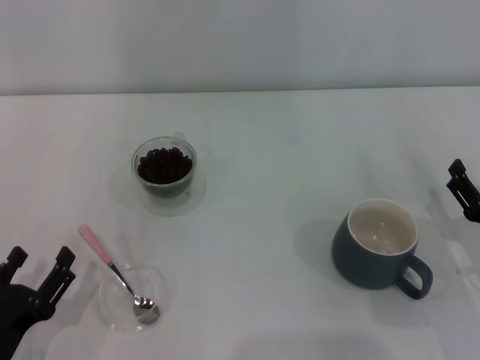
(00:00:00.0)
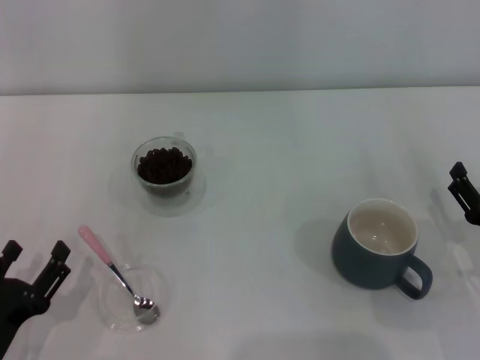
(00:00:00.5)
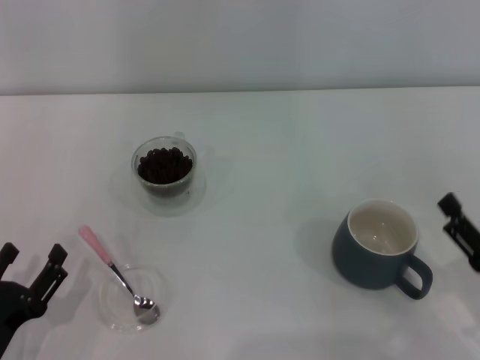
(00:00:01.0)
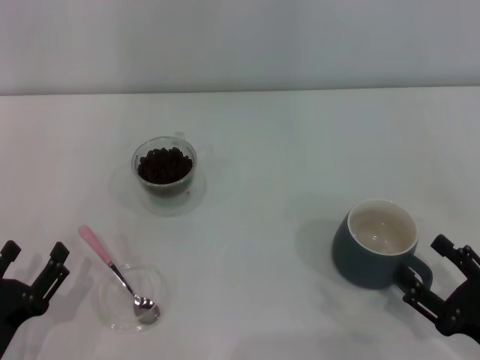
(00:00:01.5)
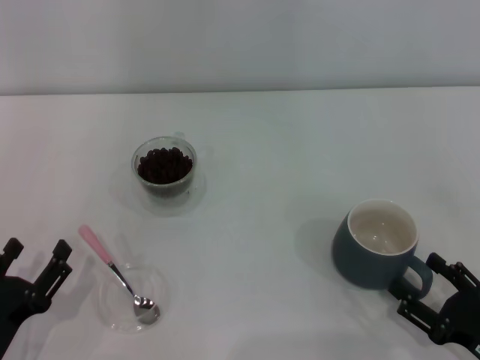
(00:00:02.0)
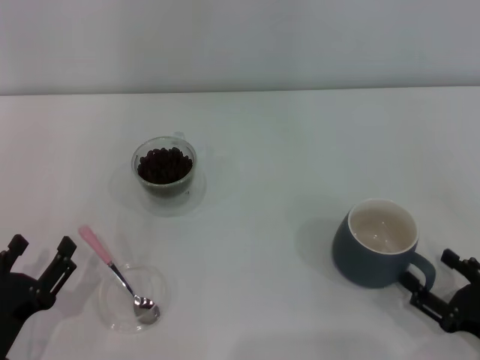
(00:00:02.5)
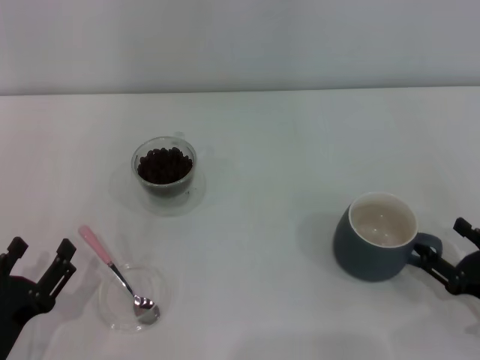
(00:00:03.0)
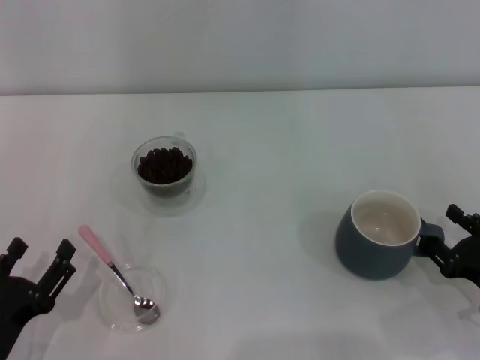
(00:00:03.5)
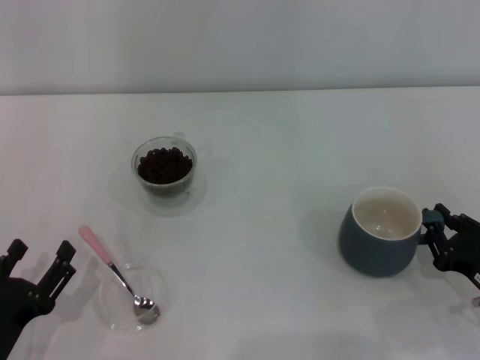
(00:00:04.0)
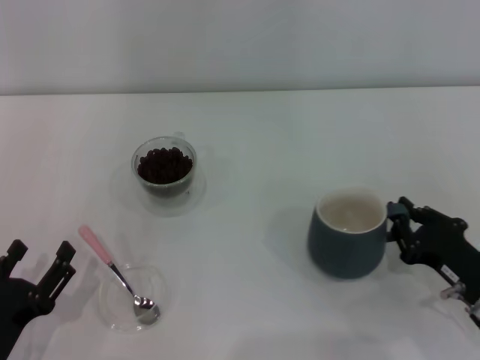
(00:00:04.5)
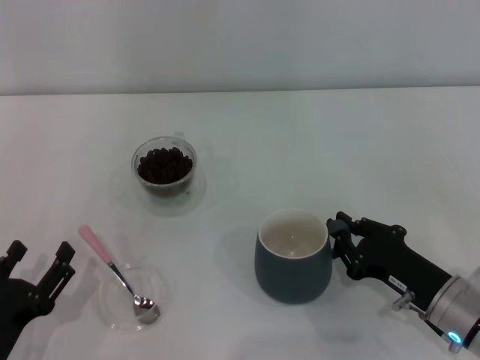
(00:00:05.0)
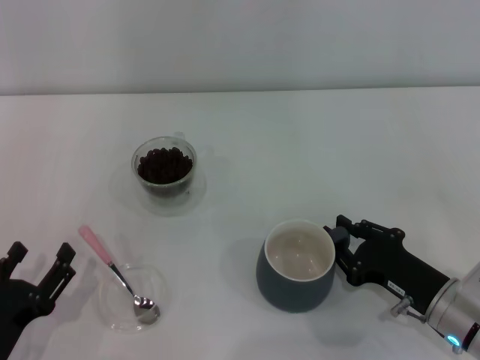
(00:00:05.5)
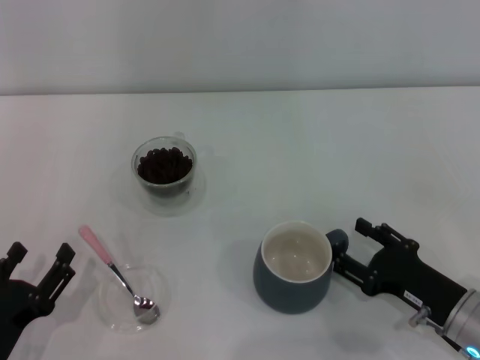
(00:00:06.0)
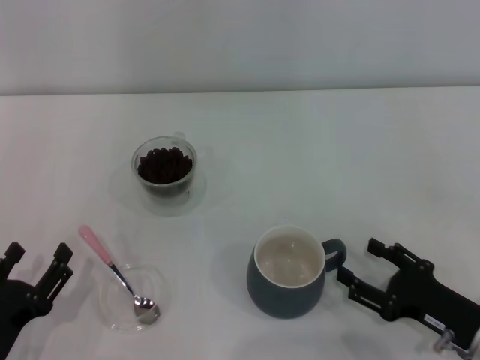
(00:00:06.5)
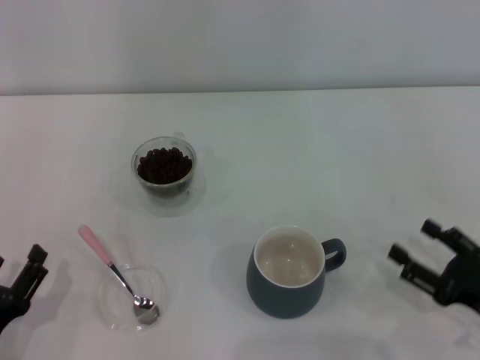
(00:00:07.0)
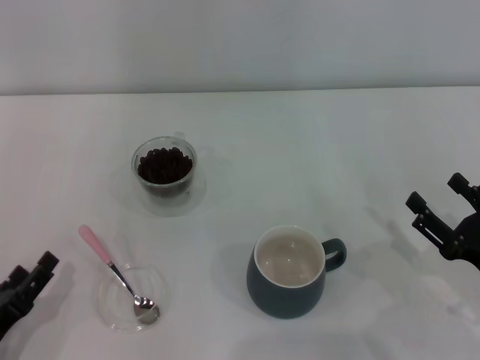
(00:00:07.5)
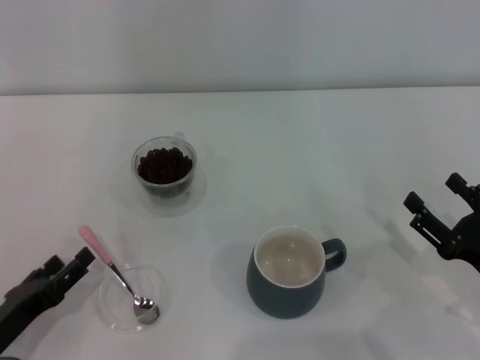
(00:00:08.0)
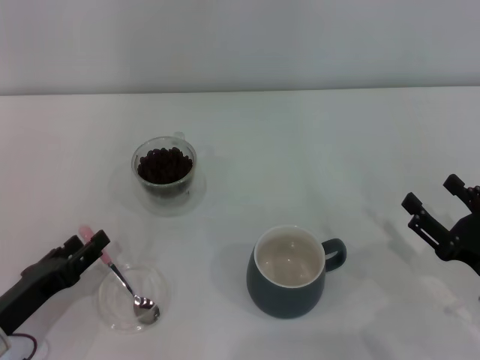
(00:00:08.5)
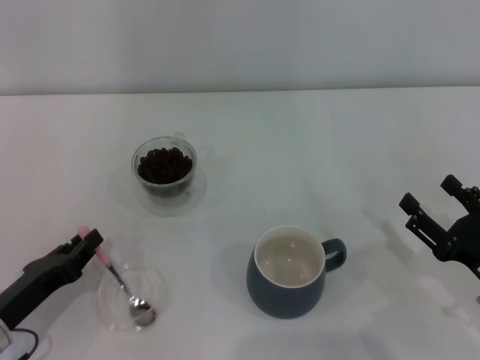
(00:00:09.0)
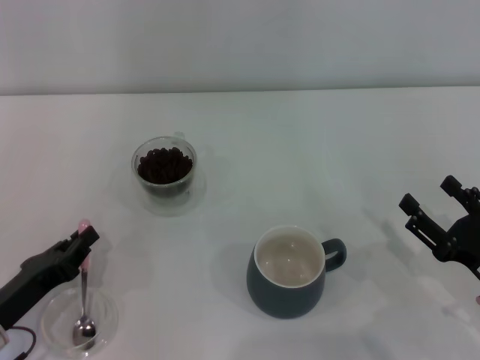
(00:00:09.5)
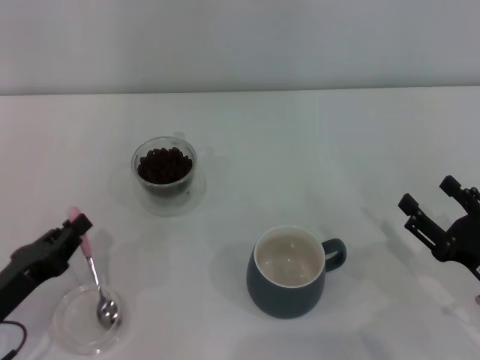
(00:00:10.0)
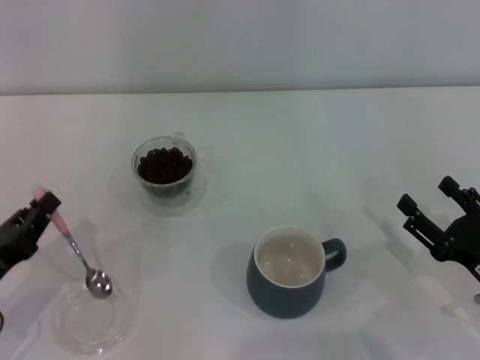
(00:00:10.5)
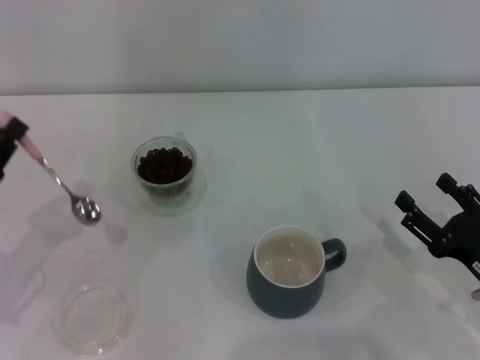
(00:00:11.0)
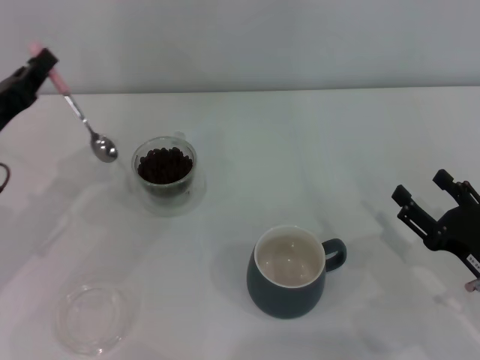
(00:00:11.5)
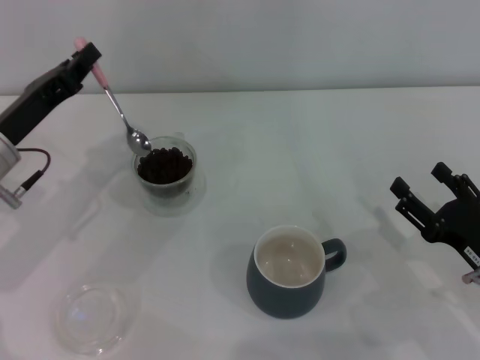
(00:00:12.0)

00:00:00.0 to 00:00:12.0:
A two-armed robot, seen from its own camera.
Task of the whole recording: Use a pink spoon to take out the coffee beans from the glass and pour them into the gray cup.
Step, 00:00:07.0 to 00:00:10.5: Pick up the spoon with the right gripper.
00:00:00.0 to 00:00:02.0: The right gripper goes roughly 10 cm backward.
00:00:02.0 to 00:00:04.0: The right gripper goes about 5 cm forward, and closes.
00:00:04.0 to 00:00:06.0: The right gripper travels to the left by some 5 cm, and closes and opens again.
00:00:06.0 to 00:00:08.0: The right gripper ends up roughly 5 cm from where it was, and opens up.
00:00:08.0 to 00:00:10.0: The left gripper closes.
00:00:10.0 to 00:00:12.0: The left gripper goes some 15 cm forward and upward.

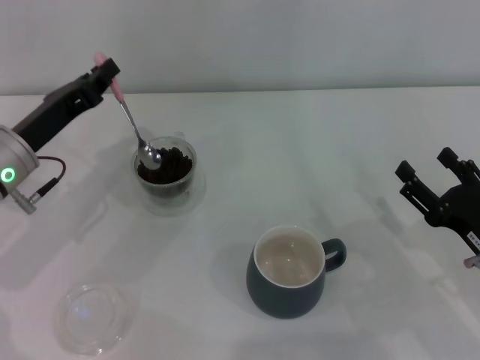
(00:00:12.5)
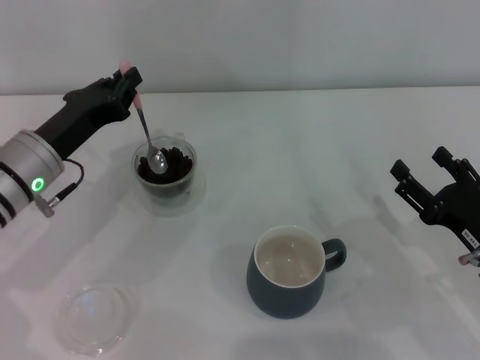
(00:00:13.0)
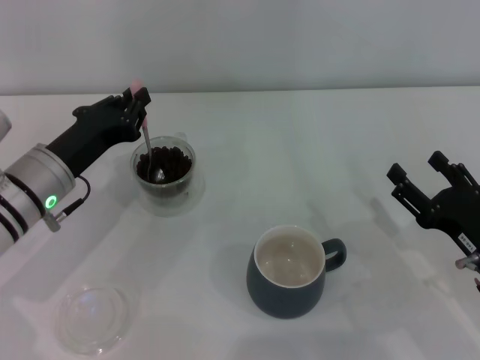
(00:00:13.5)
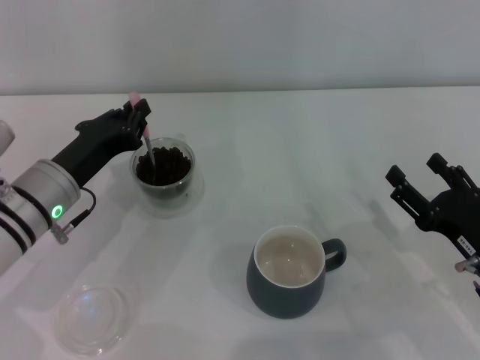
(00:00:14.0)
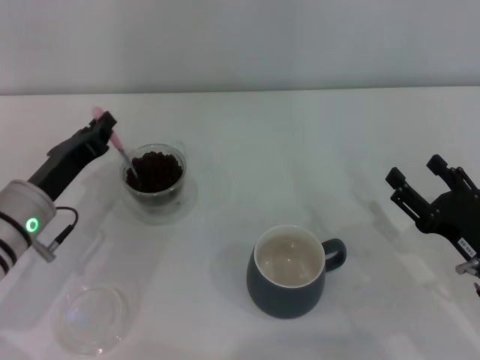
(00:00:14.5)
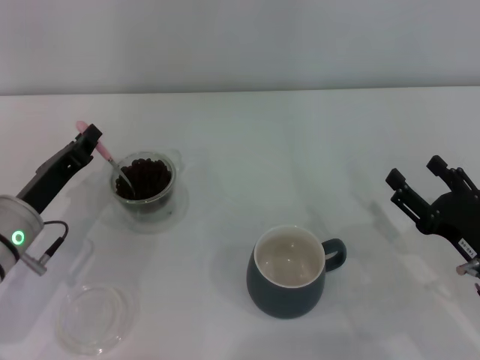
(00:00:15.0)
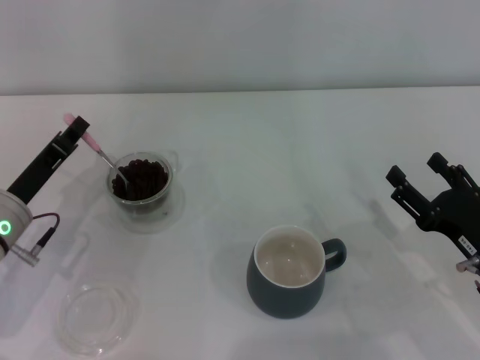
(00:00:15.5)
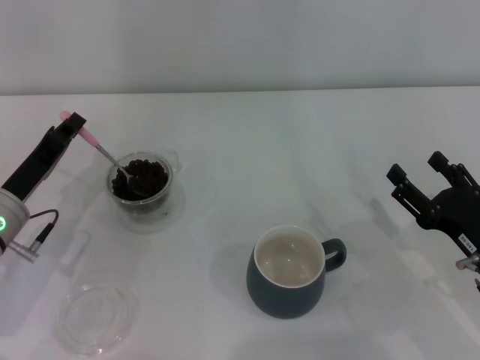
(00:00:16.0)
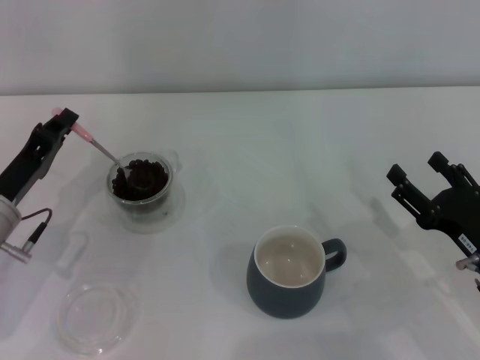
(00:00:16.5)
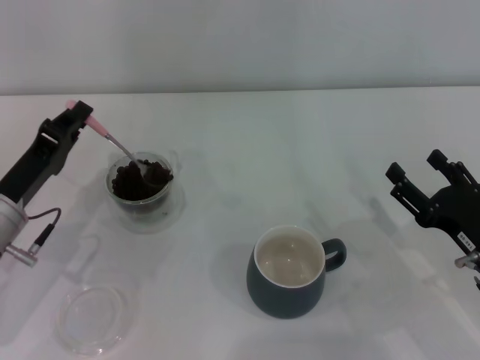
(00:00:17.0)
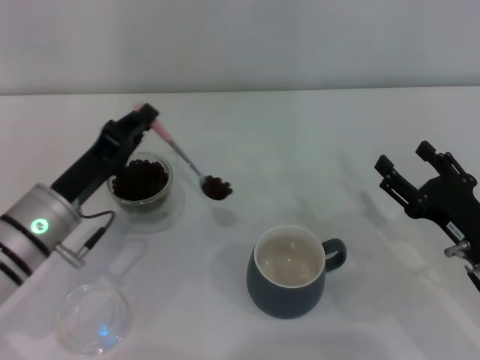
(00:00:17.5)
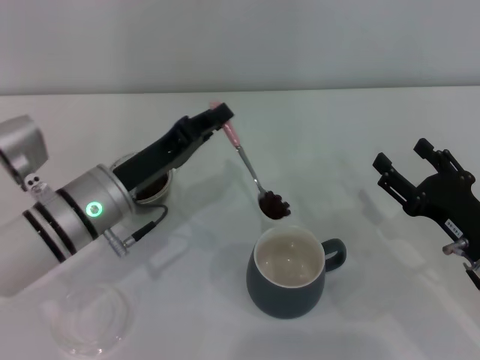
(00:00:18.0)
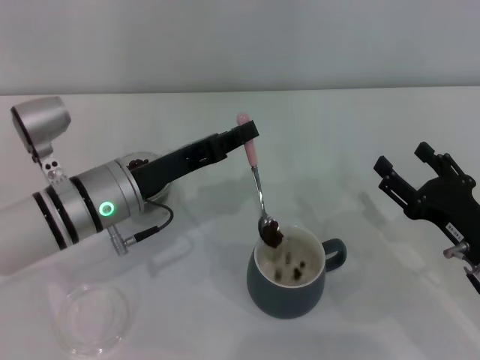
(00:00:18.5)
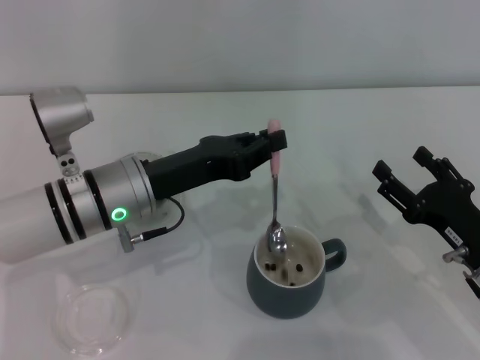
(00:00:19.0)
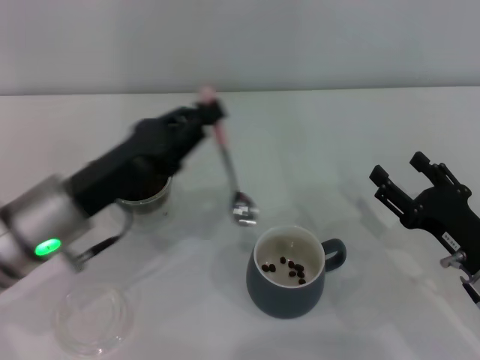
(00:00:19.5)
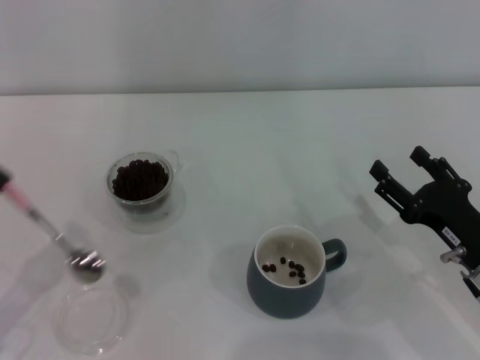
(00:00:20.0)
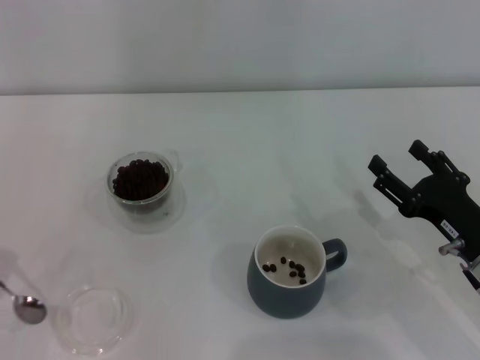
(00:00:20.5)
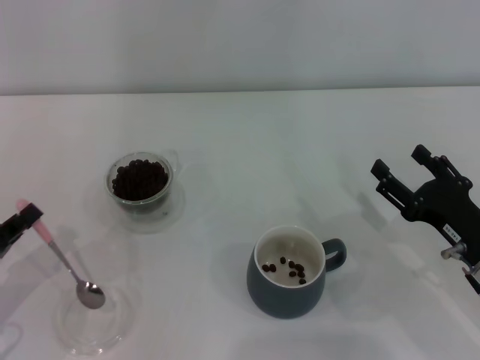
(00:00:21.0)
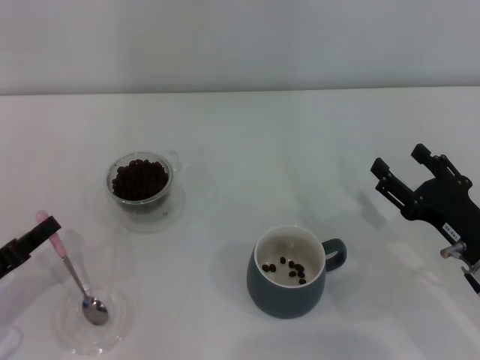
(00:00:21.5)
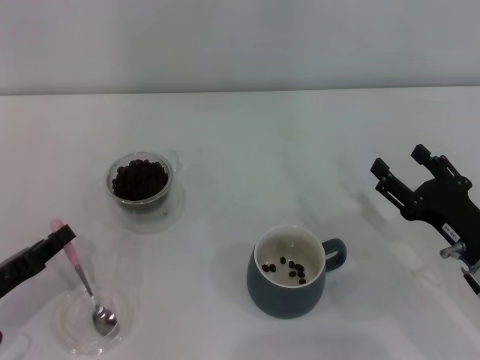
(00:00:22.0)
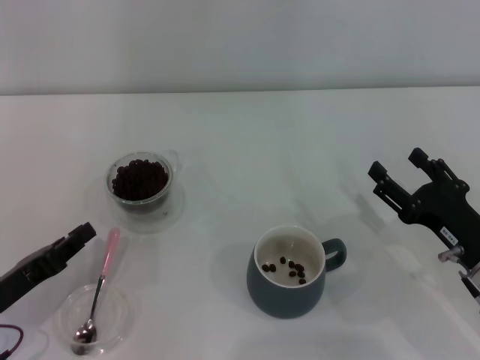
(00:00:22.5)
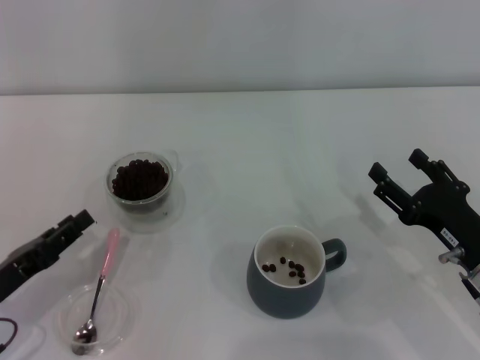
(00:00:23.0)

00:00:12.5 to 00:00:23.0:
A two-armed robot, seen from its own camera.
Task of the whole recording: Use a pink spoon to take out the coffee beans from the glass and pour them into the gray cup.
Step, 00:00:12.5 to 00:00:18.5: Scoop a spoonful of beans into the cup with the right gripper.
00:00:12.5 to 00:00:14.5: The left gripper shifts by about 5 cm.
00:00:16.5 to 00:00:19.0: The left gripper travels to the right and upward by about 15 cm.
00:00:19.0 to 00:00:21.0: The left gripper shifts approximately 20 cm to the left and backward.
00:00:21.0 to 00:00:23.0: The left gripper opens up.

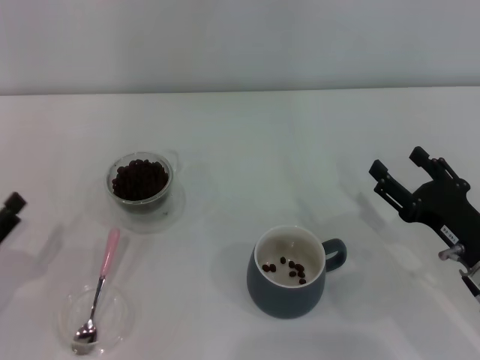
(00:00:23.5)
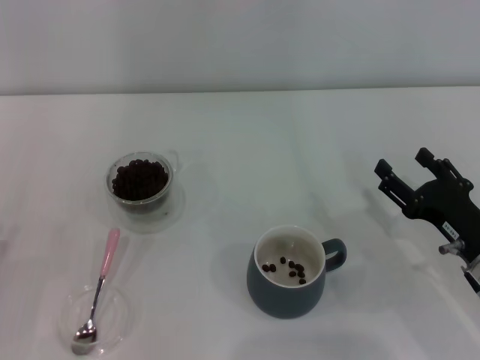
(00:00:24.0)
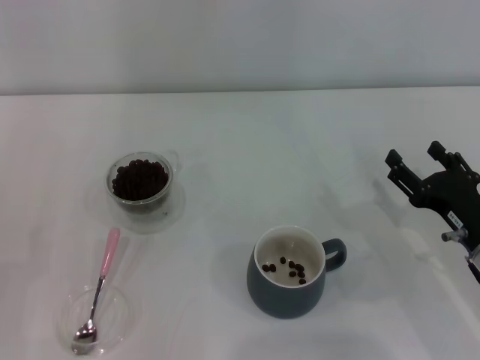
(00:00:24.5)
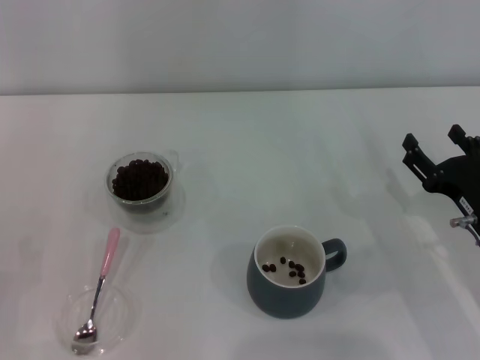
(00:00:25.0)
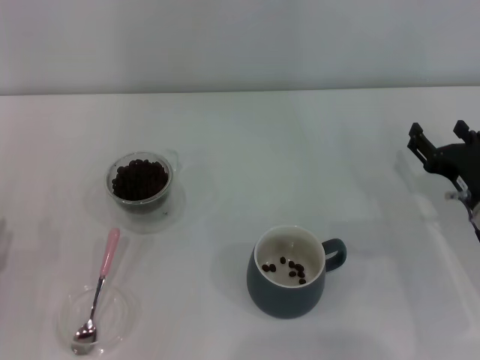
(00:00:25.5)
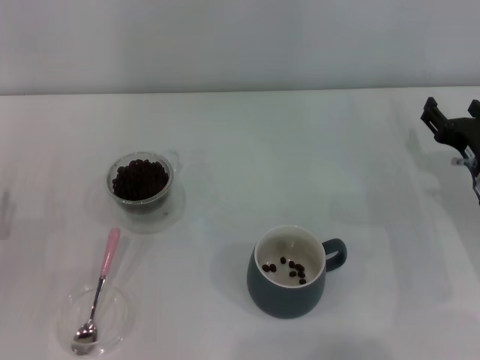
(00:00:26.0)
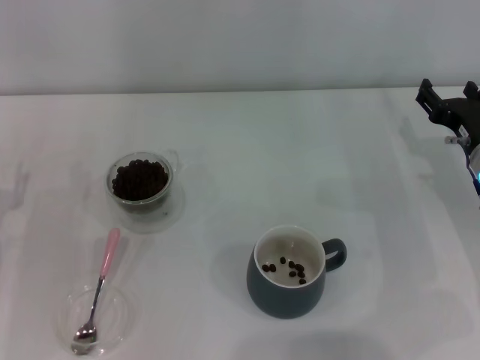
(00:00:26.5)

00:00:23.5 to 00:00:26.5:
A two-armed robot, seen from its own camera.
Task of the whole recording: Use a pink spoon to take out the coffee beans from the glass and pour them into the gray cup.
00:00:25.0 to 00:00:26.5: The right gripper travels forward by about 10 cm.
